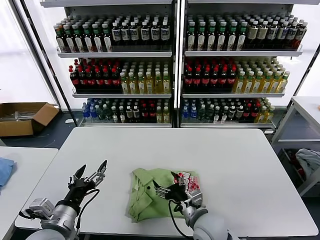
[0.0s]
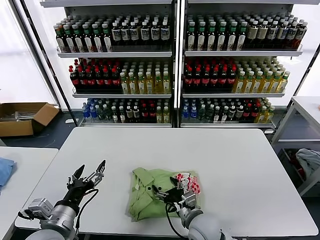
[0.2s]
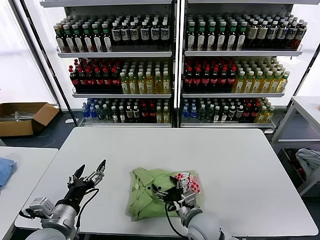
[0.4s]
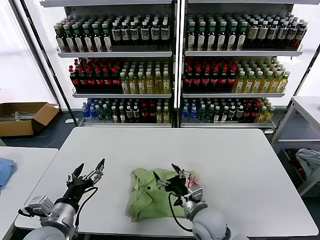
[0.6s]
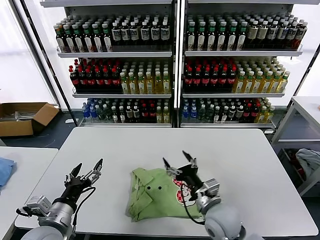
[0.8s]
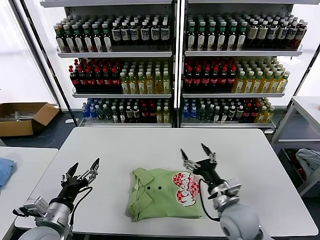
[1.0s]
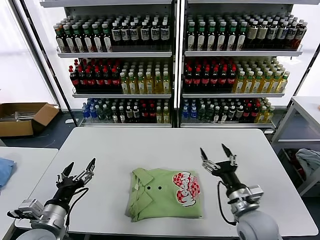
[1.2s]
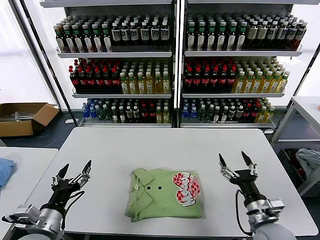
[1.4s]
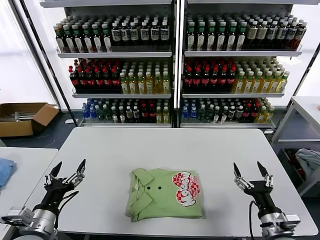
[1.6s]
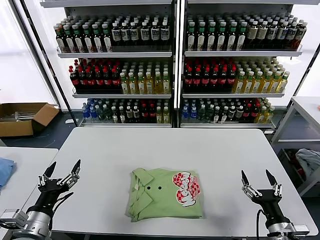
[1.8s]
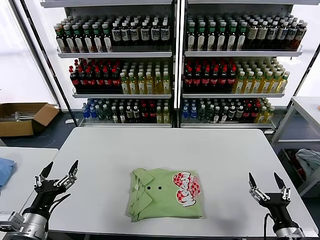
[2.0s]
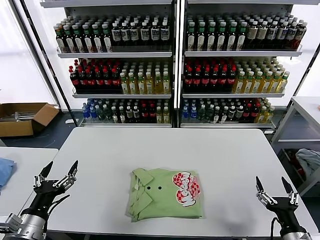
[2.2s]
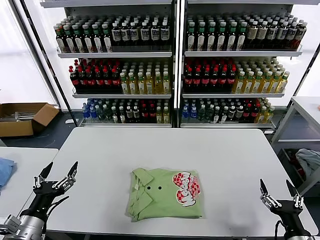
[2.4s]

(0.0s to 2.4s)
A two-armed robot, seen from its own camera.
Task of the whole recording: fold and organize the clothes.
0.0s - 1.2s: The right gripper is displaced to the right by some 10 cm.
1.2s - 2.4s: The right gripper shifts roughly 20 cm to the right and backward, while the left gripper ends up roughly 5 cm from where it was.
